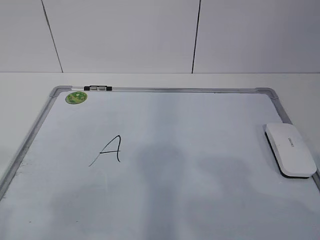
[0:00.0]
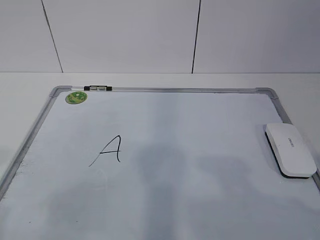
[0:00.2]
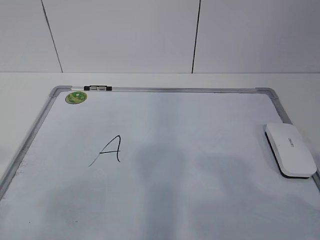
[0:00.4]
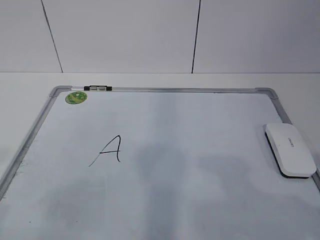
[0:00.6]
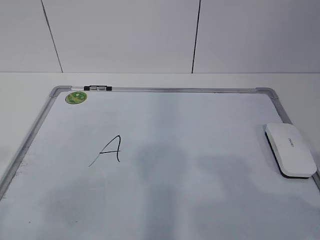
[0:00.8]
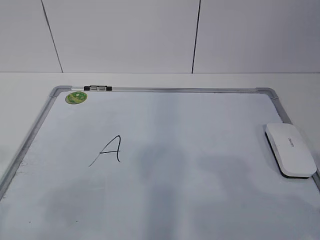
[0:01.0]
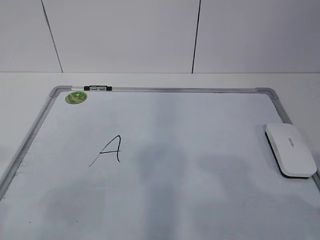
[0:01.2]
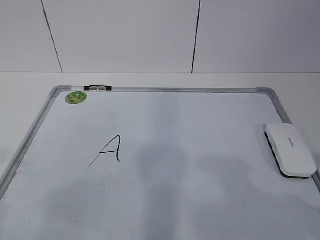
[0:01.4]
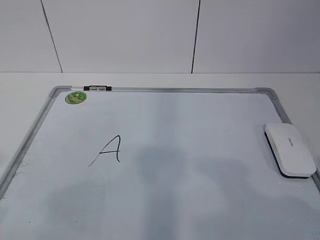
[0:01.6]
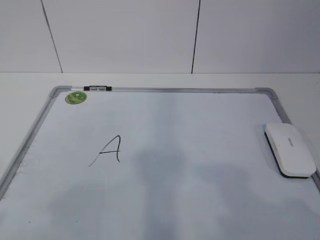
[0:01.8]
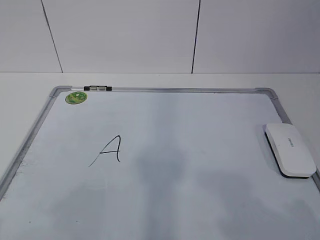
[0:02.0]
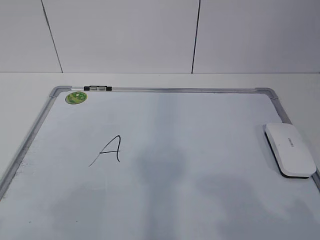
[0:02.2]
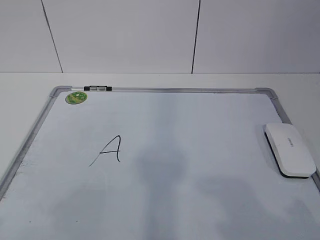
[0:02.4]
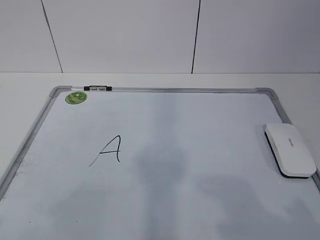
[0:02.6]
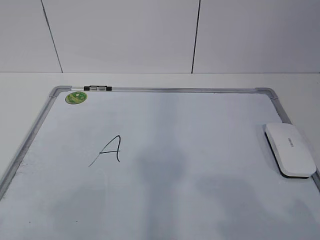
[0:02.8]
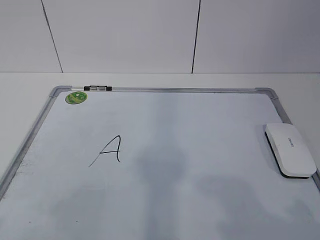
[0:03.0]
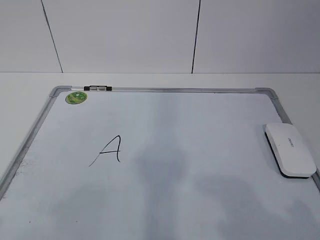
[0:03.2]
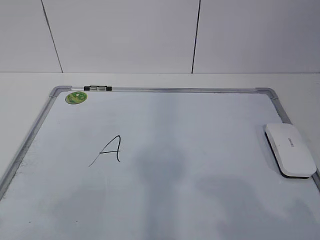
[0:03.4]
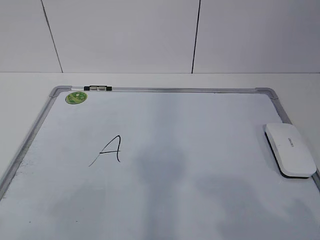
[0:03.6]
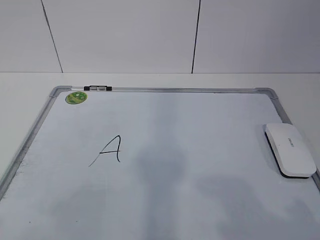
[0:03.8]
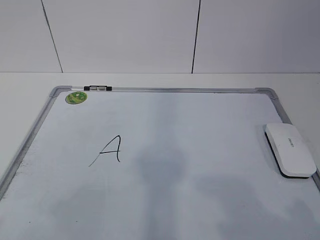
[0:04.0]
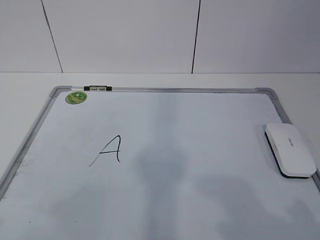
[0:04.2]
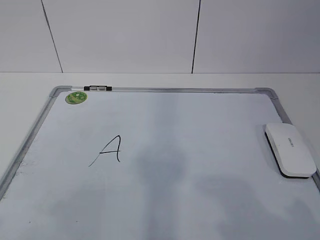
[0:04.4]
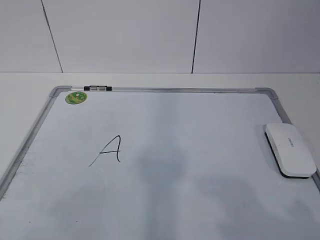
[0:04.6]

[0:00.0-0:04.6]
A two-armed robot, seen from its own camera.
Task of the whole recording: pick up the eraser on the blackboard and erase the letter "a".
0:03.0 to 0:04.6: Both grippers stay put.

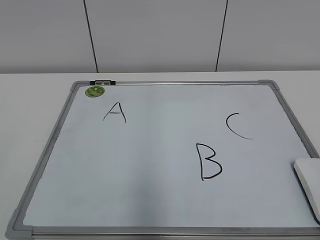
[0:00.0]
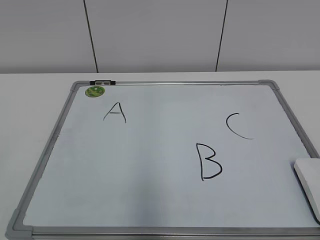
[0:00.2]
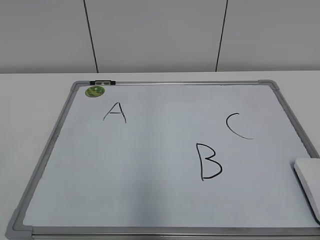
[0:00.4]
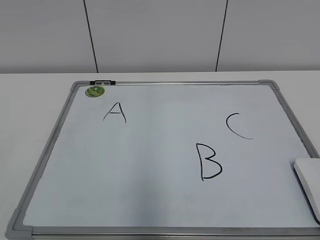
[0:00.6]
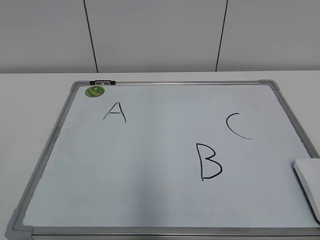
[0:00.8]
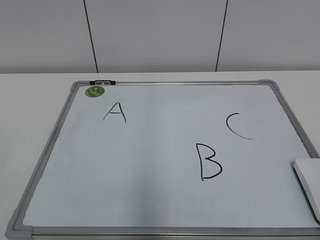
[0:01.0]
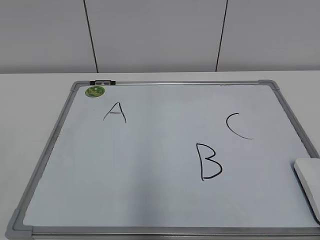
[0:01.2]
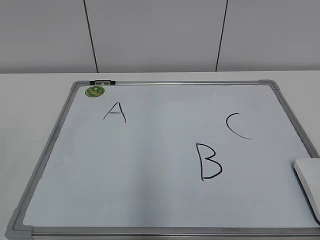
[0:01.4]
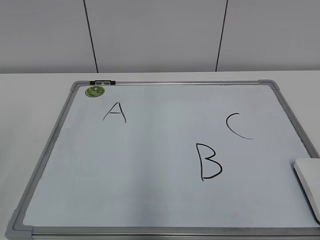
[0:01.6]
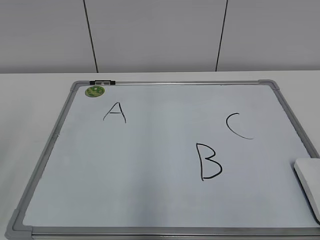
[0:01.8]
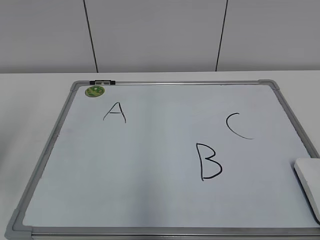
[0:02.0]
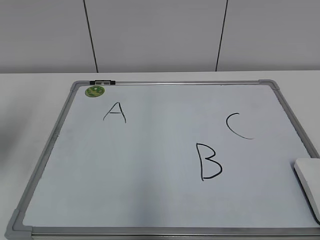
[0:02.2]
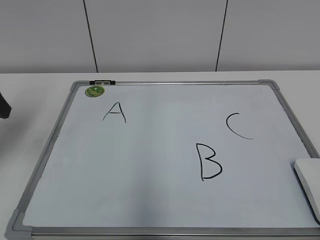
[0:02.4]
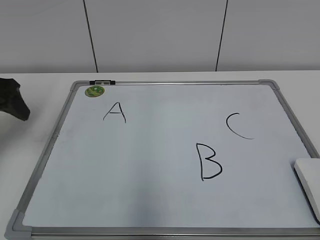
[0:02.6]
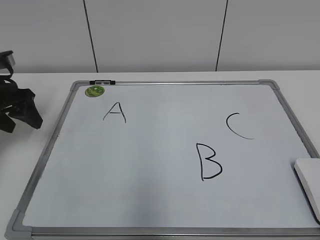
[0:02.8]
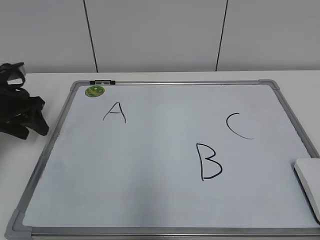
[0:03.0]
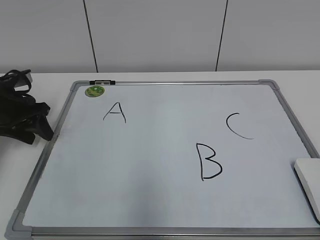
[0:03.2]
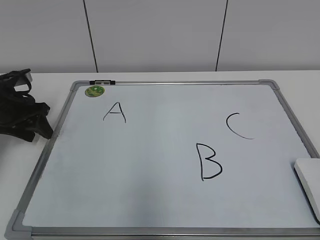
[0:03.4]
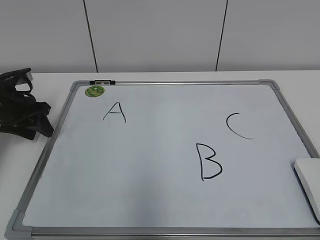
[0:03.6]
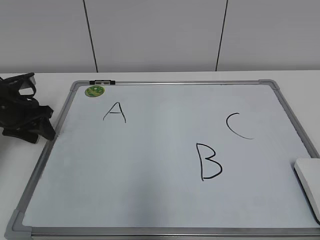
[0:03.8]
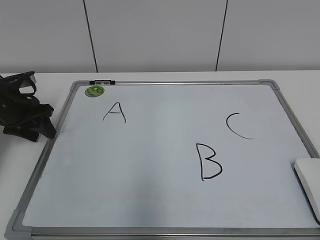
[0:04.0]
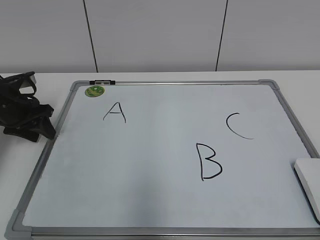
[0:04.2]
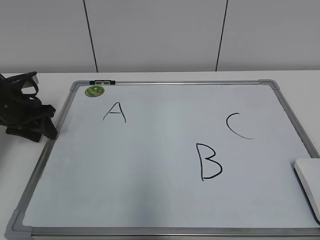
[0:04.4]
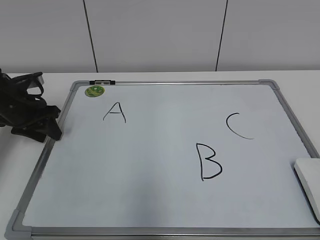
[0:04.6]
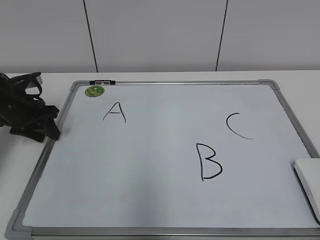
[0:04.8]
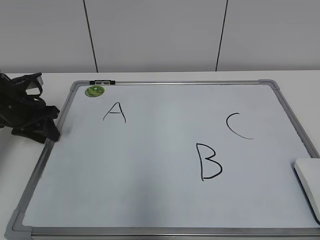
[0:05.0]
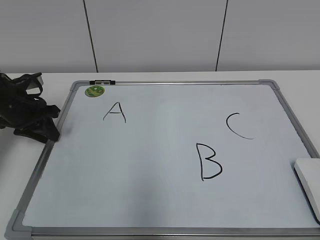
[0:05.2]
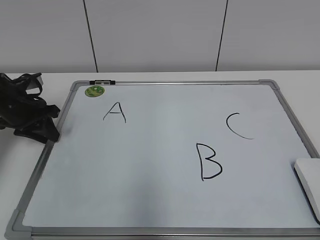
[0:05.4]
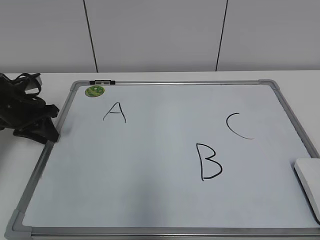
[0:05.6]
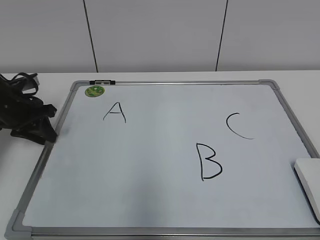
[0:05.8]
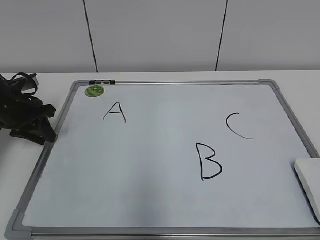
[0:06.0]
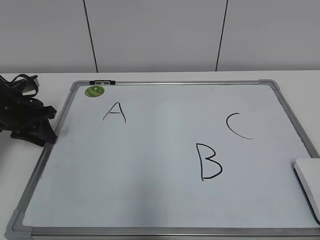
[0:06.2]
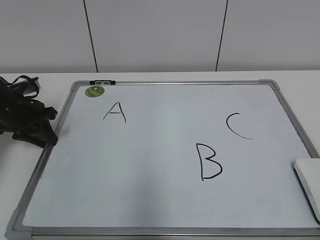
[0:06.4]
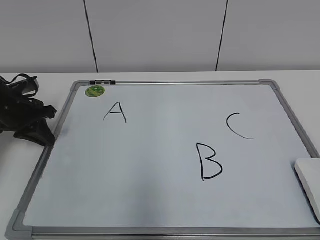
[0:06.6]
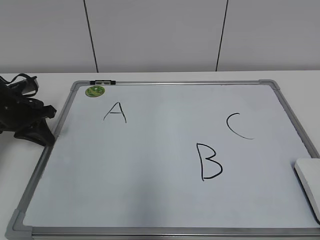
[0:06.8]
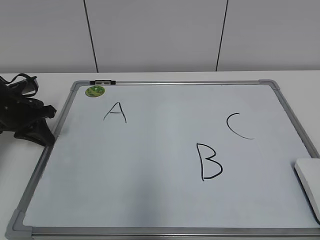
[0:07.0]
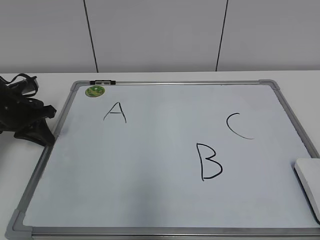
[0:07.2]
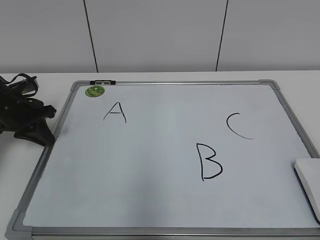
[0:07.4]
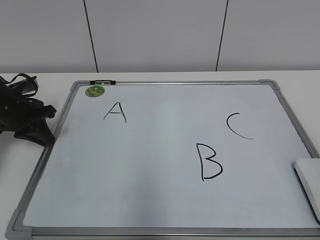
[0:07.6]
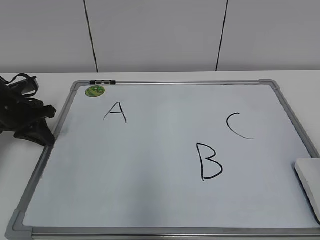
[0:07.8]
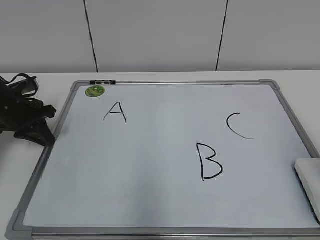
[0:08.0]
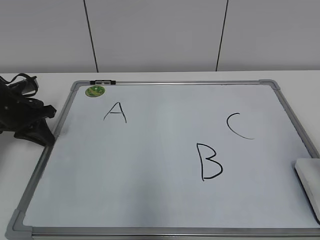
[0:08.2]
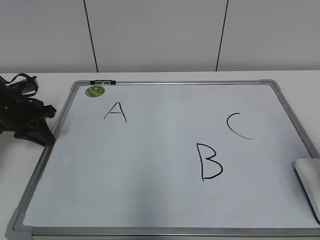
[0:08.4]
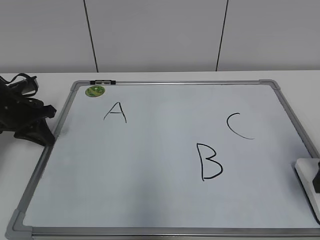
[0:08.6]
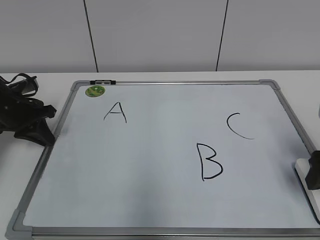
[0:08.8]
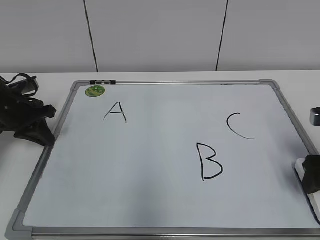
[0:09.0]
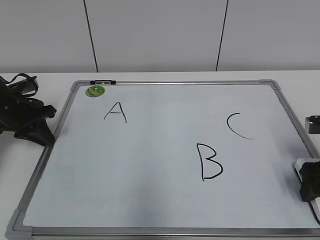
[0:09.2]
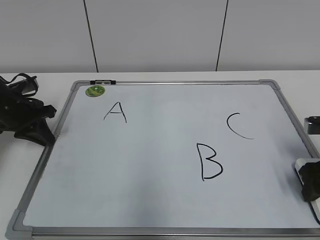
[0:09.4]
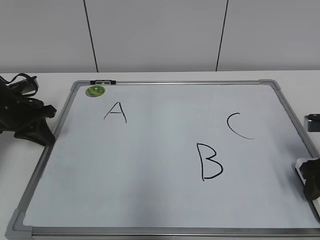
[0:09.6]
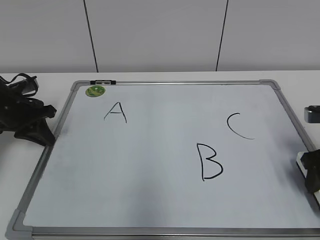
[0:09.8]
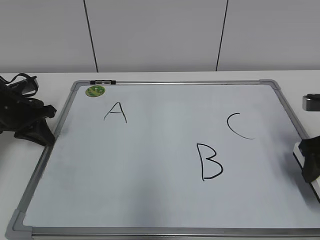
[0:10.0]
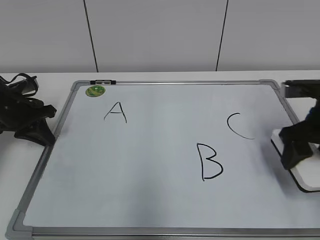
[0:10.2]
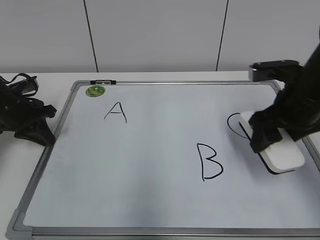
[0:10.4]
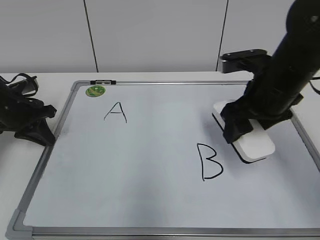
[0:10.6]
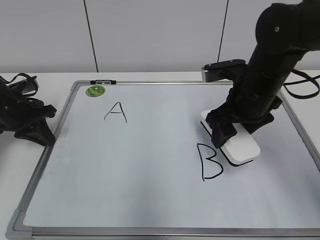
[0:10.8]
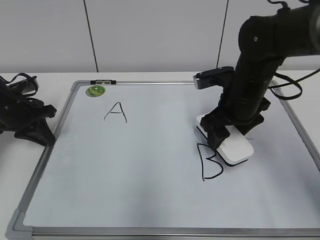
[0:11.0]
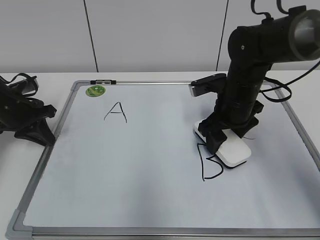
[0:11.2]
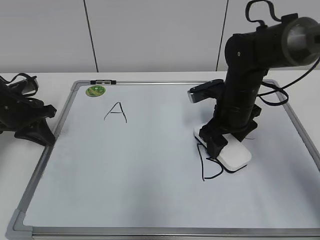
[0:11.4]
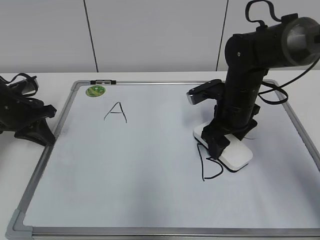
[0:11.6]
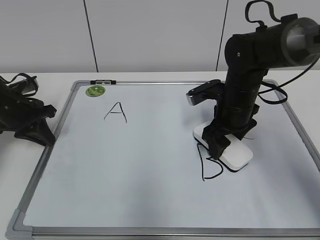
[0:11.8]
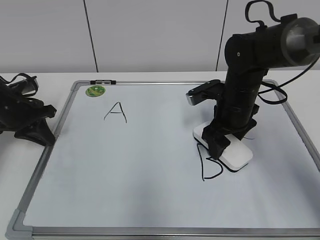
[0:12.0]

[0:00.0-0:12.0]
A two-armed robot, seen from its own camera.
Task of the whole recording: pick up the eraser on the blackboard and erase the letter "B".
Step, 0:00.0 to 0:07.6: Hold the drawing board steady with your left hand.
Step, 0:08.0 to 0:09.4: Grab the eraser with your right hand.
0:01.6 to 0:03.0: The left gripper travels forward and downward by about 35 cm.
0:03.0 to 0:04.4: The grippers make only small movements.
0:04.4 to 0:06.0: Neither gripper changes place.
0:07.6 to 0:09.0: The right gripper travels forward and downward by about 25 cm, and opens its fingers.
0:09.0 to 0:10.4: The right gripper travels to the left and forward by about 10 cm, and closes up.
0:10.4 to 0:12.0: The right gripper shifts approximately 15 cm to the left, forward and downward.

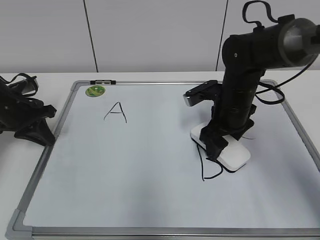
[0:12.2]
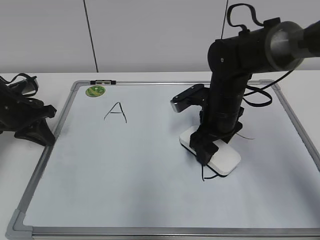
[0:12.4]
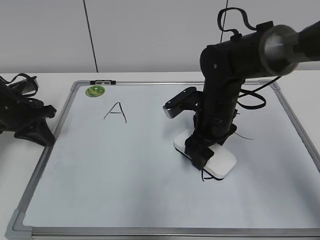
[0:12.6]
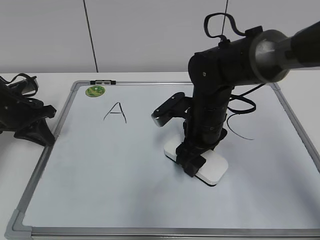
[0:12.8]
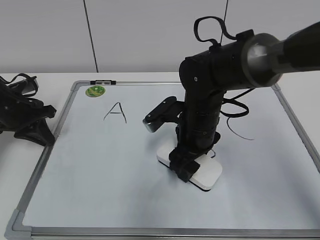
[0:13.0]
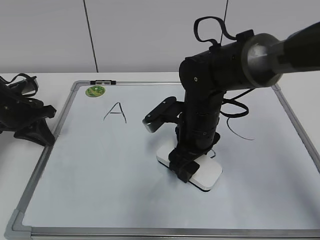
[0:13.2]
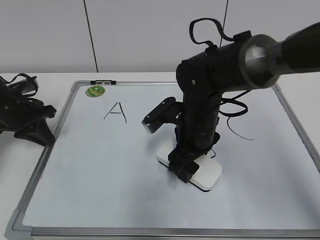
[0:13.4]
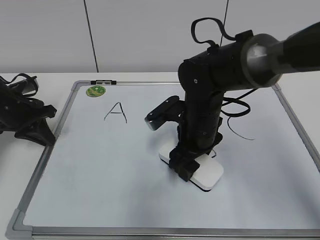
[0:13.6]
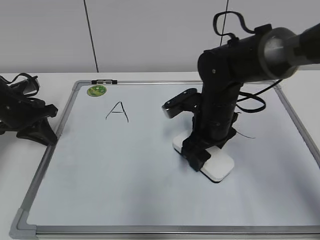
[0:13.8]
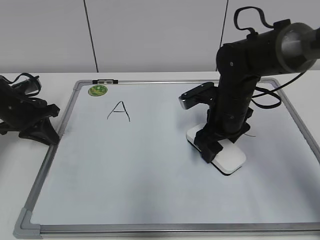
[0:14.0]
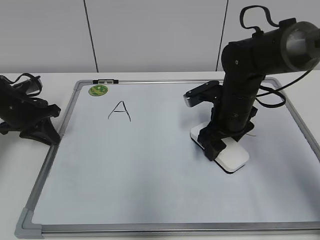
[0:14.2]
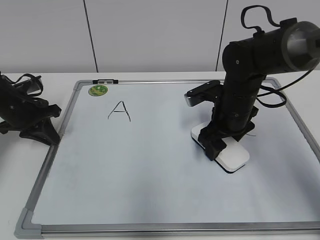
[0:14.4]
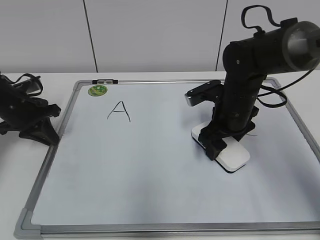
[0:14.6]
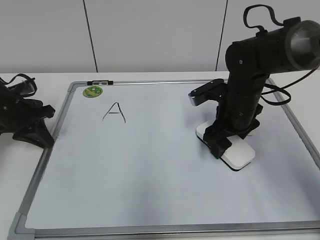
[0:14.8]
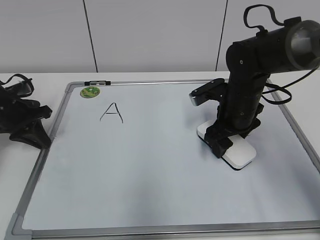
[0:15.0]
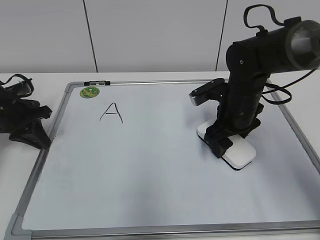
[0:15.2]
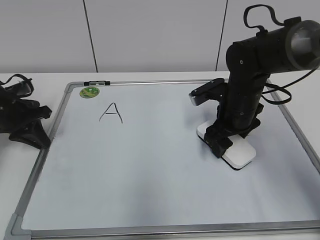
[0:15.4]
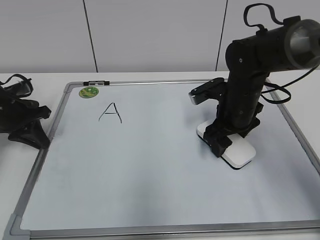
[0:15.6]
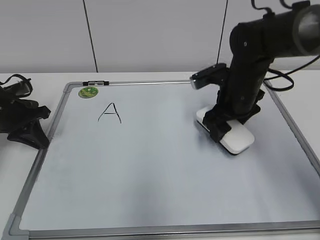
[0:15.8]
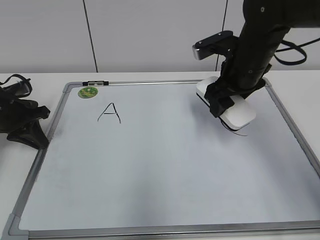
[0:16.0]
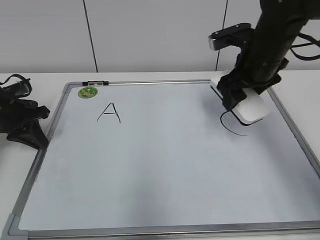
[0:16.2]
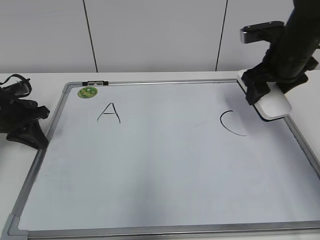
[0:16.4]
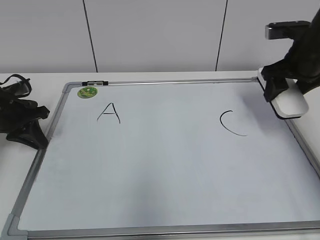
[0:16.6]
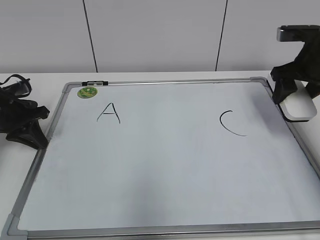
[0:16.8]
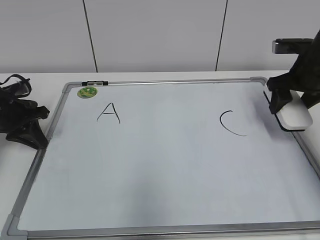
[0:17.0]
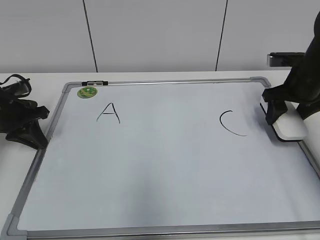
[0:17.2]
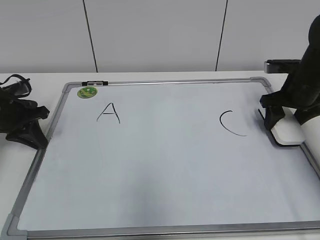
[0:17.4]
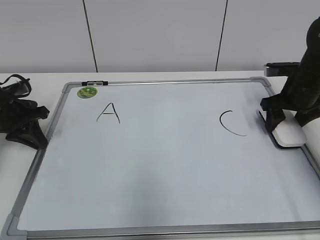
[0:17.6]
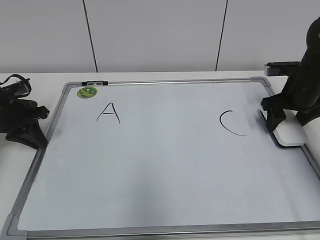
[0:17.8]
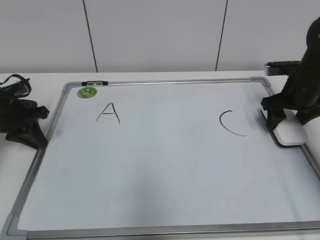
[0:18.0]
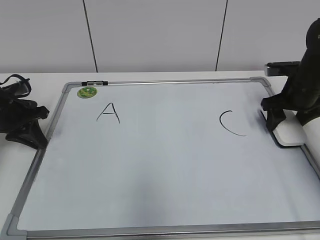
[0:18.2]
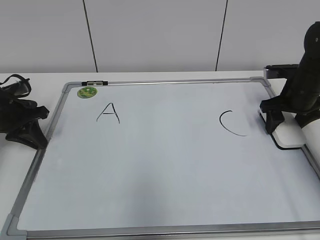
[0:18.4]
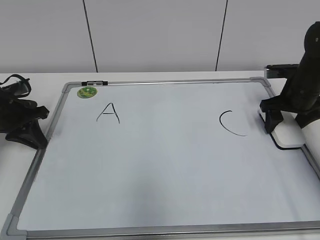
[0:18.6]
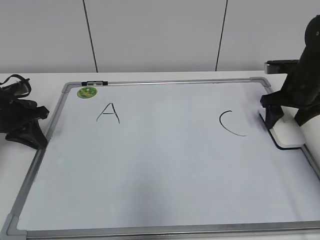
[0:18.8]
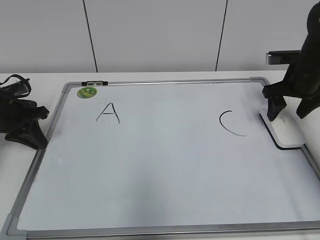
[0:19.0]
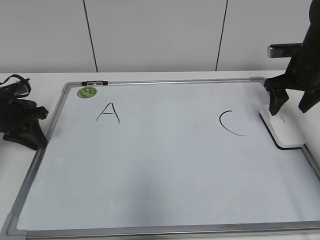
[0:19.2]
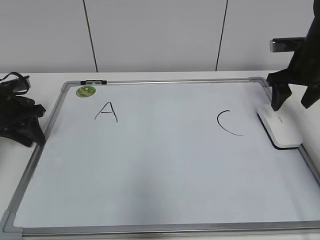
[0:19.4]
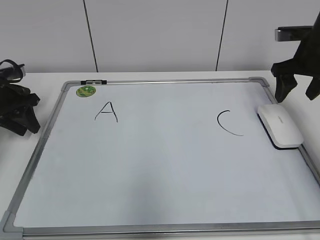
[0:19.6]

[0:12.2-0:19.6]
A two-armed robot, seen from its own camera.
Task of the whole recording: pick up the eraser on the blackboard and erase the letter "B".
Step, 0:12.2 to 0:15.4: Erase the letter B with your right hand.
0:12.2 to 0:13.6: The right gripper is displaced to the left by approximately 5 cm.
0:13.6 to 0:15.2: The right gripper is displaced to the right by about 10 cm.
0:15.2 to 0:16.6: The right gripper travels to the right and upward by some 15 cm.
0:16.6 to 0:18.2: The right gripper travels downward by approximately 10 cm.
0:18.2 to 0:19.6: The right gripper shifts about 5 cm upward, and opens its fingers. Meanwhile the left gripper opens.
